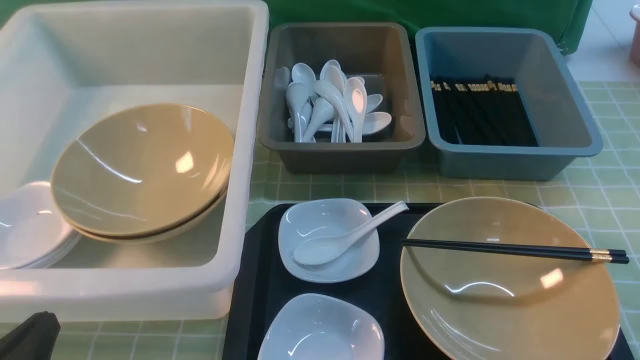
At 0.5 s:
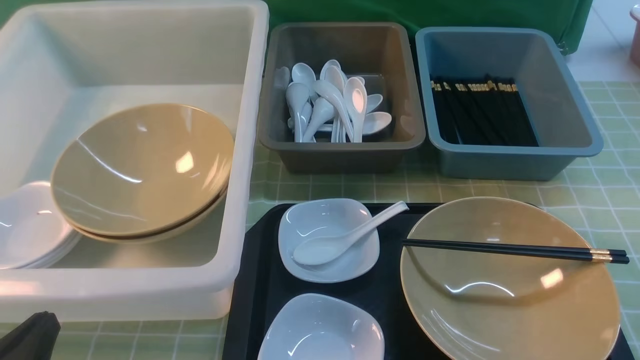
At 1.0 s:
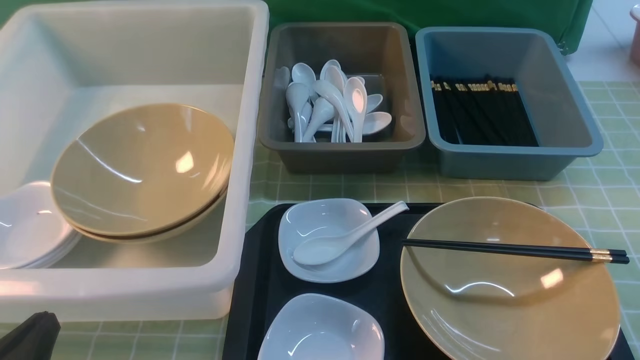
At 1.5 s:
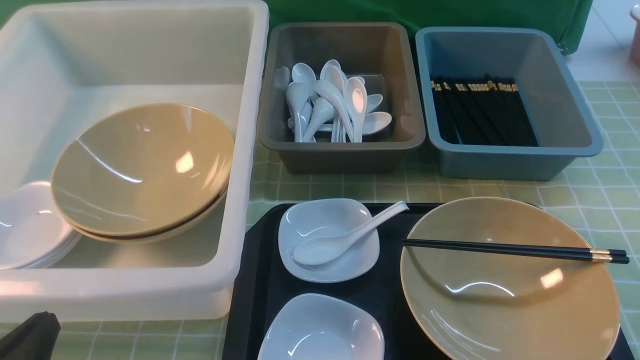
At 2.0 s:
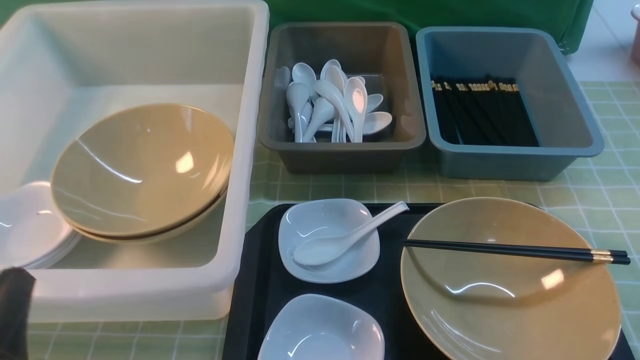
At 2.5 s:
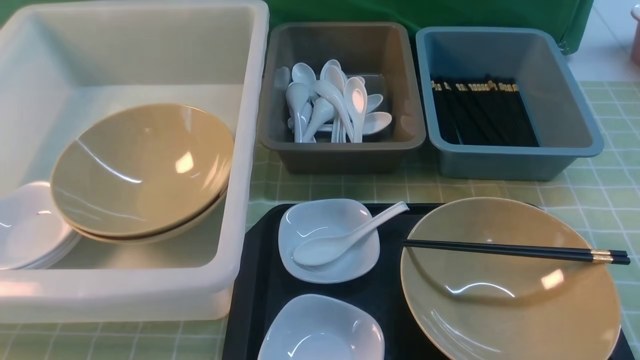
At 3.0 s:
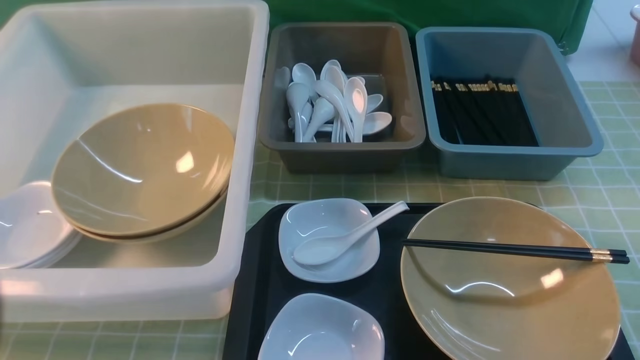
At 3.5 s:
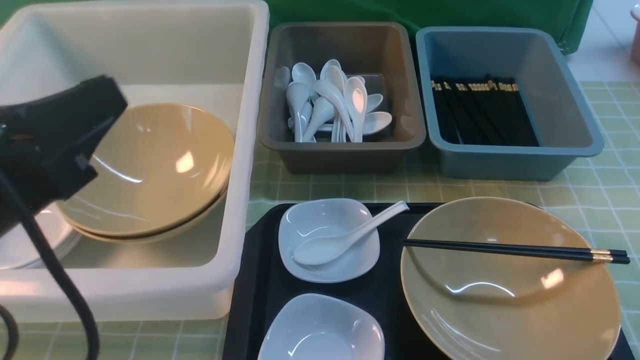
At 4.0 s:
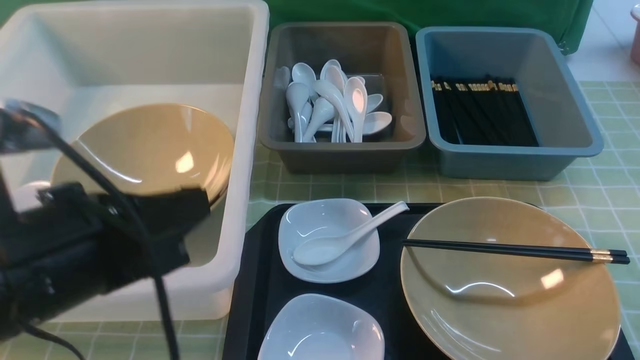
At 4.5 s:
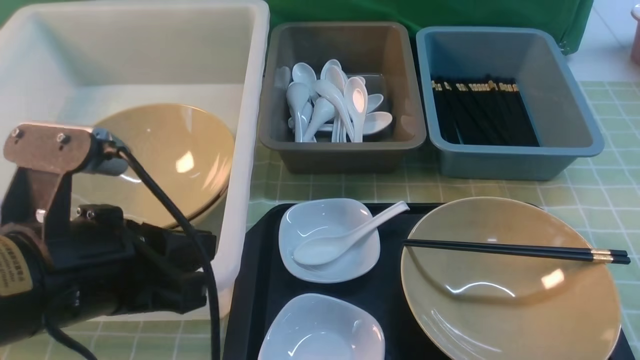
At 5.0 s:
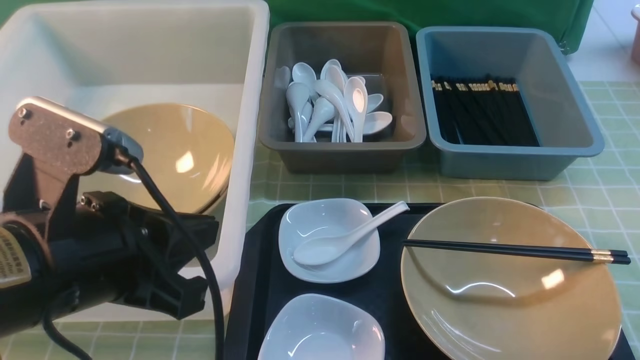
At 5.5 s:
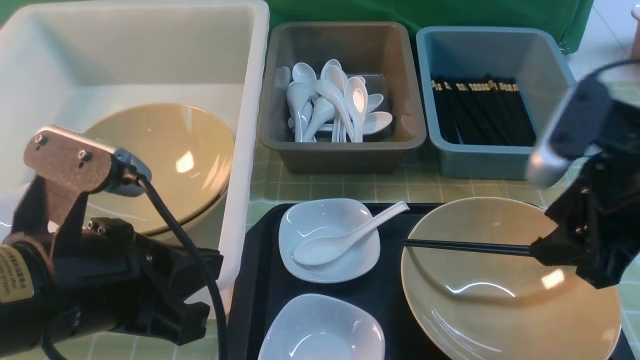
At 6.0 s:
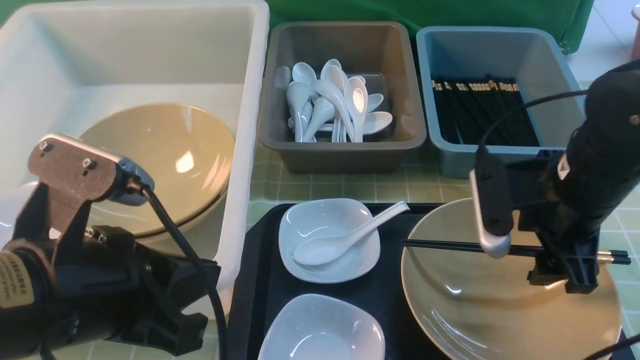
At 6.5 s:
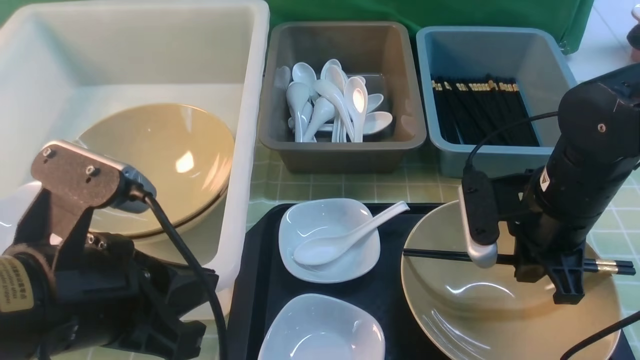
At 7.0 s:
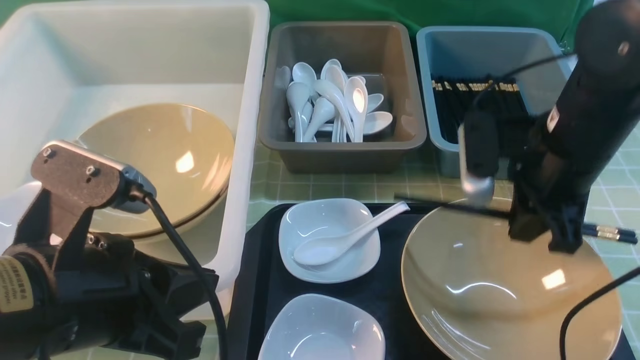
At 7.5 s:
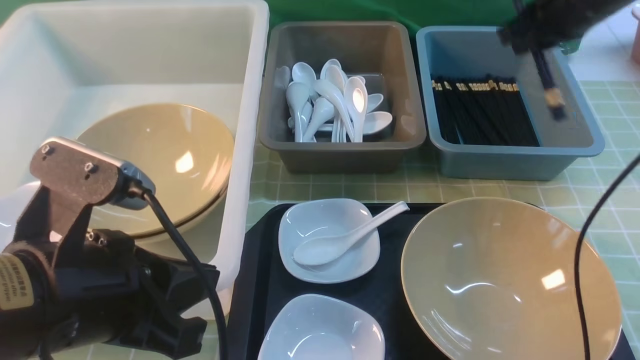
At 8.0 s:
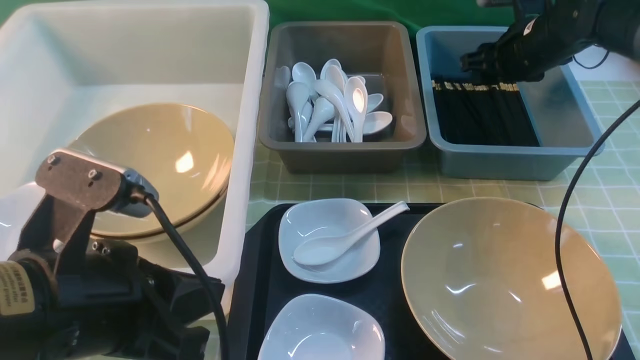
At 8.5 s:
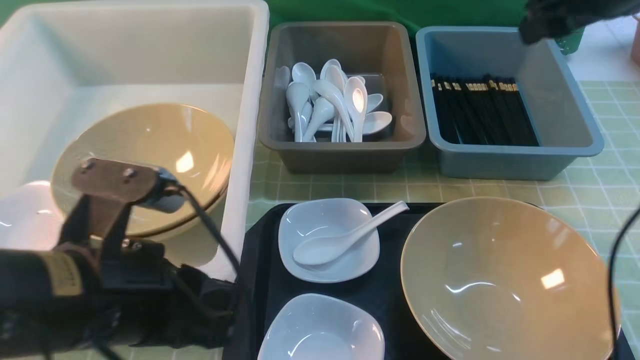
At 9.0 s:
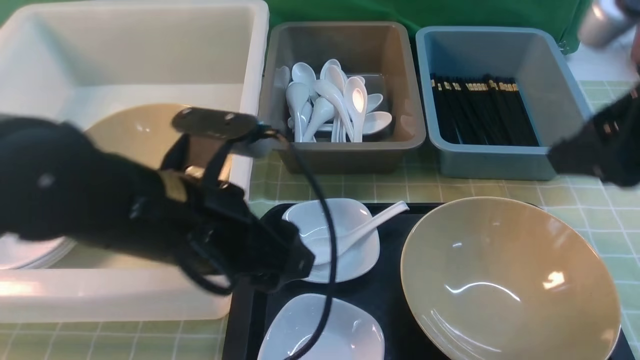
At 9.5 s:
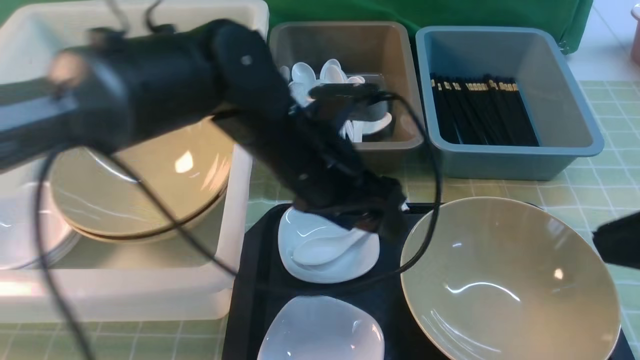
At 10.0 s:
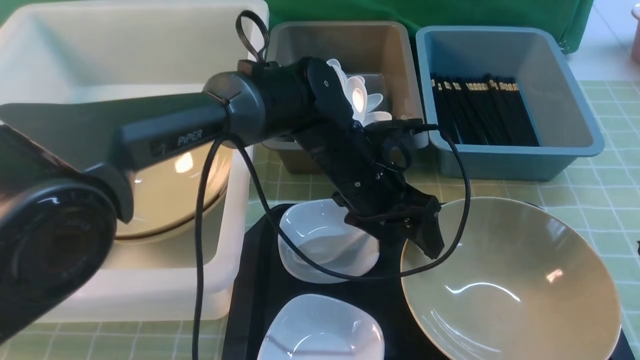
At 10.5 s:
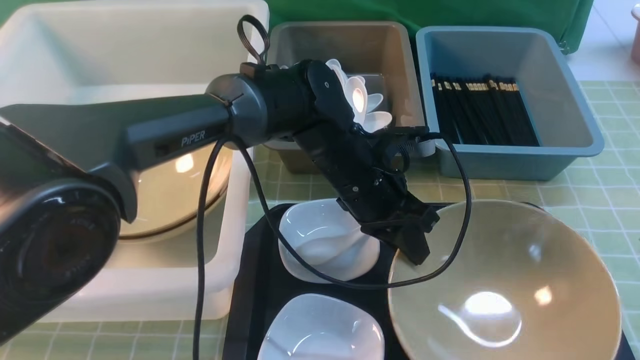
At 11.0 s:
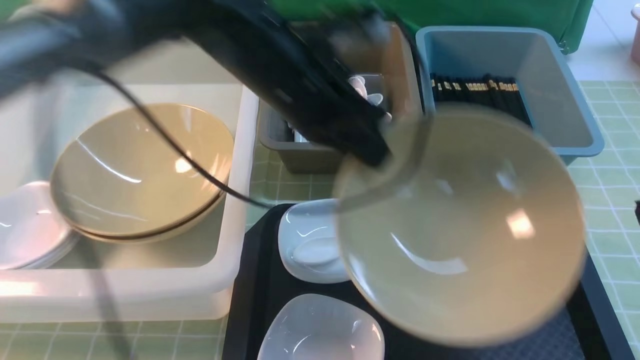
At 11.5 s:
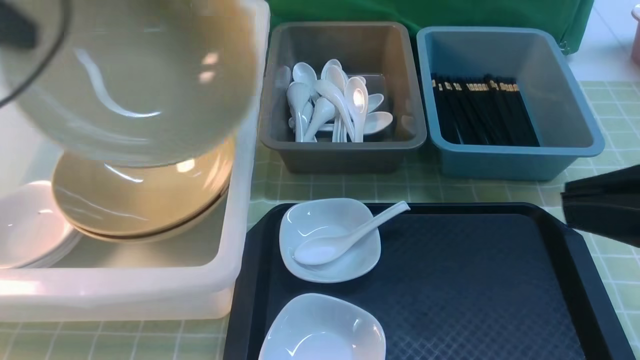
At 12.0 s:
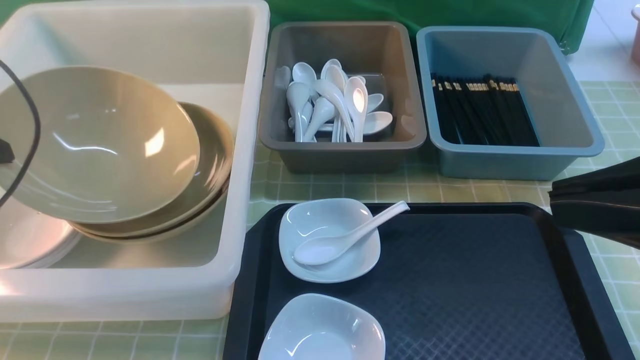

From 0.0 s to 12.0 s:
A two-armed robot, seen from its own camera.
Task of the whole recording: on green table put chopsticks spoon bowls plates into blue grey white boxes.
Step, from 0.0 s to 6.5 s: use the right arm to grab the chopsticks.
Step, from 7.0 s to 8.5 s: use the right arm to put the chopsticks into the small storage box on the right.
Step, from 9.0 s to 10.5 s: use the left arm to grab the yellow noodle bowl on the left.
From 2.0 s to 4.0 s: The left gripper heads upward, to the right and forward, covering approximately 15 cm.
From 4.0 s to 6.0 s: The right gripper shifts some 25 cm forward and to the left, and opens its fingers.
From 6.0 s to 8.0 s: The right gripper goes some 20 cm forward, and closes and opens again.
From 8.0 s to 10.0 s: The left gripper shifts about 30 cm forward, to the right and downward, and opens up, while the right gripper moves backward, some 40 cm, and closes its fingers.
From 10.0 s to 12.0 s: The left gripper moves to the left, approximately 40 cm, and closes its fingers.

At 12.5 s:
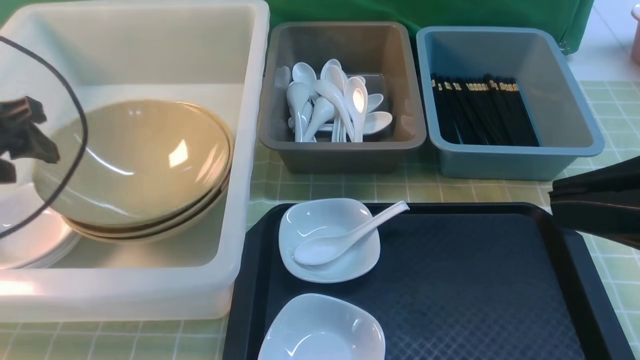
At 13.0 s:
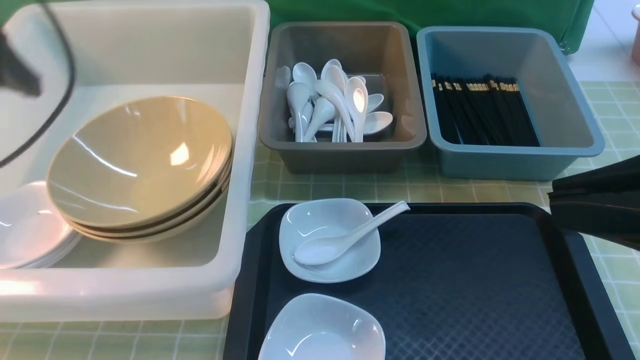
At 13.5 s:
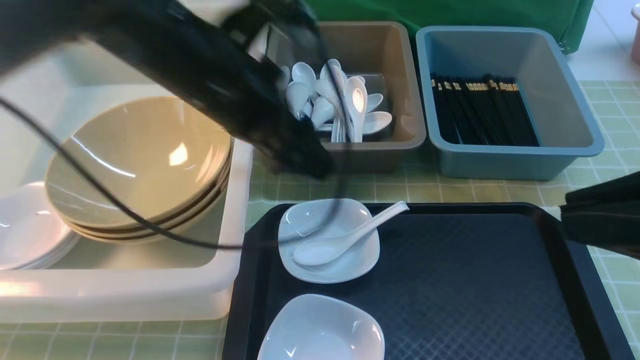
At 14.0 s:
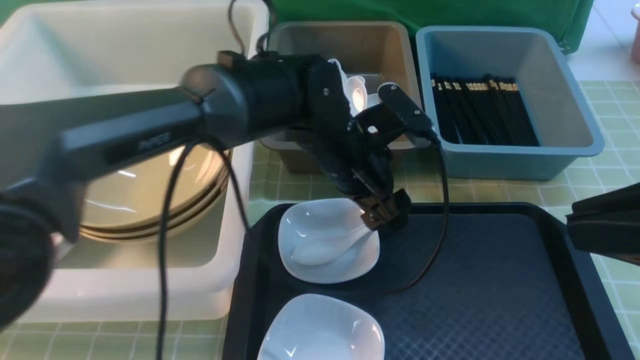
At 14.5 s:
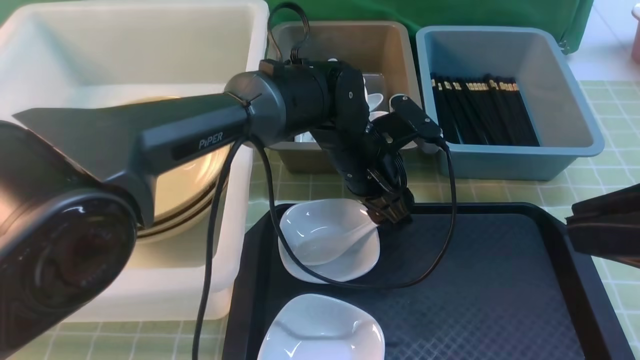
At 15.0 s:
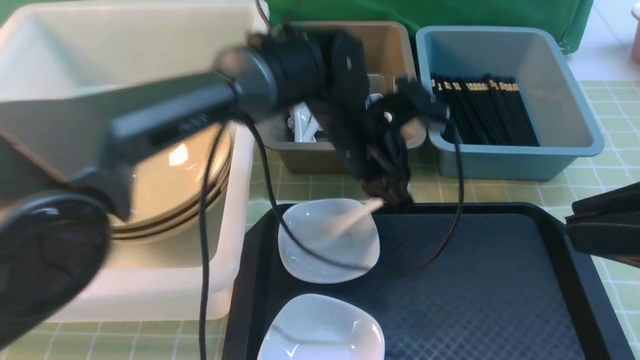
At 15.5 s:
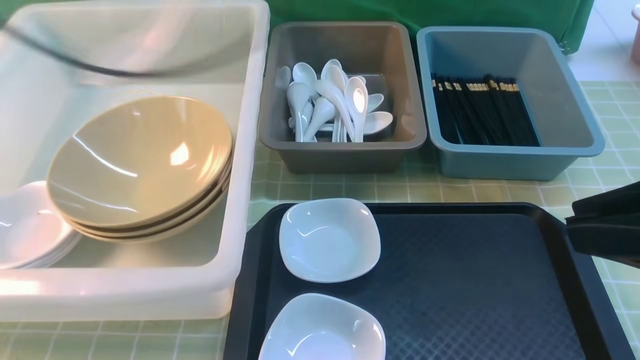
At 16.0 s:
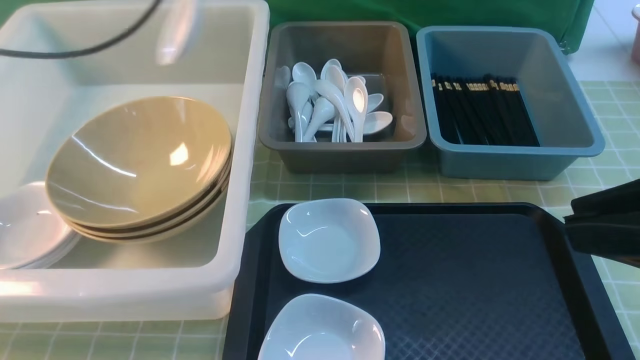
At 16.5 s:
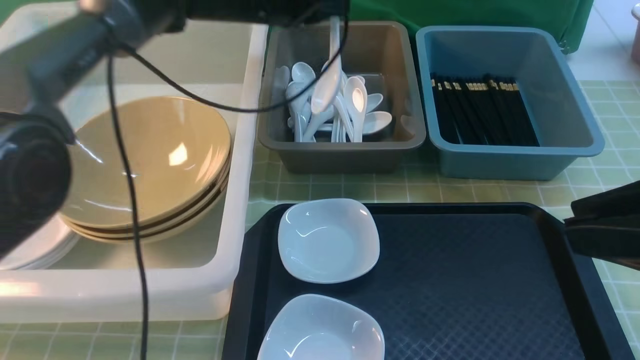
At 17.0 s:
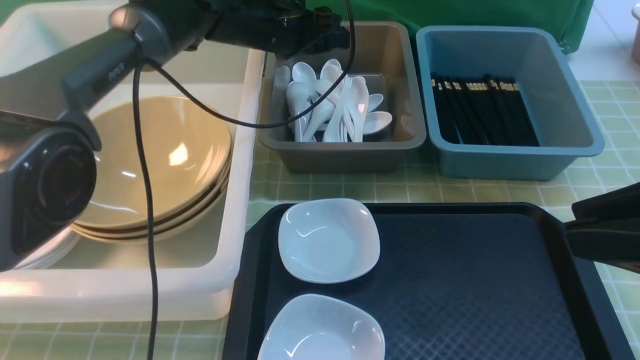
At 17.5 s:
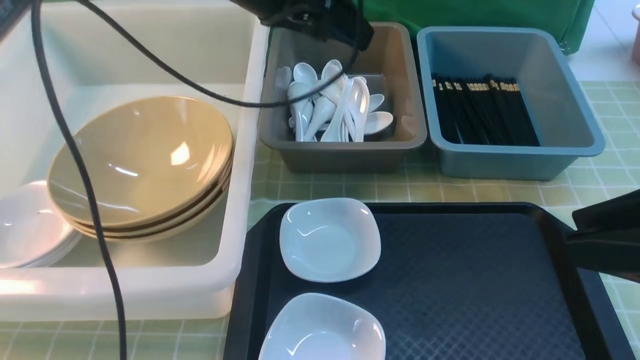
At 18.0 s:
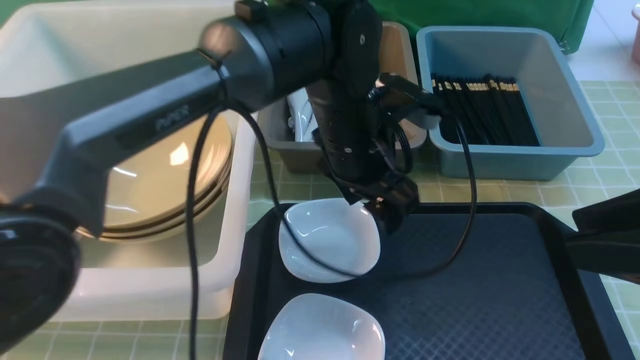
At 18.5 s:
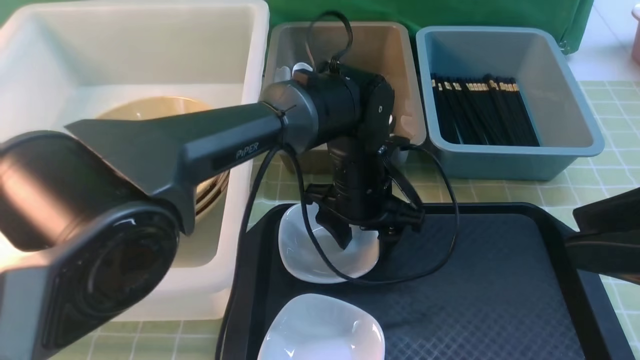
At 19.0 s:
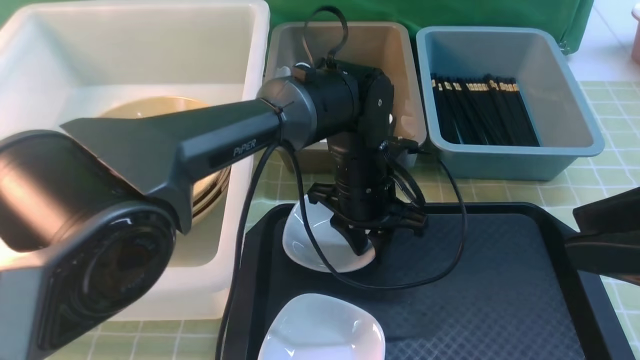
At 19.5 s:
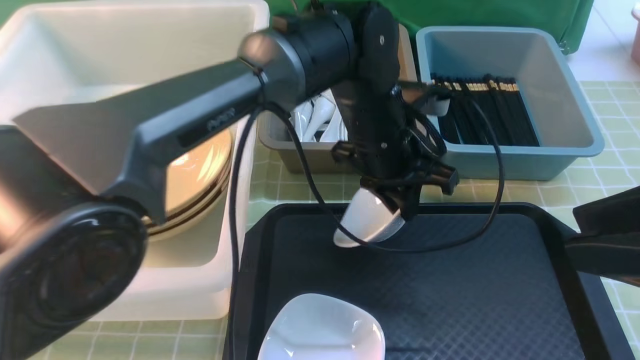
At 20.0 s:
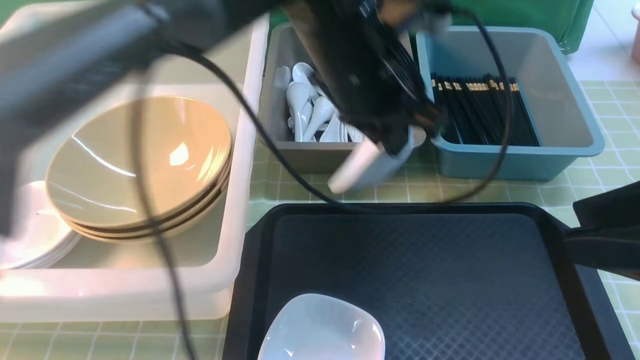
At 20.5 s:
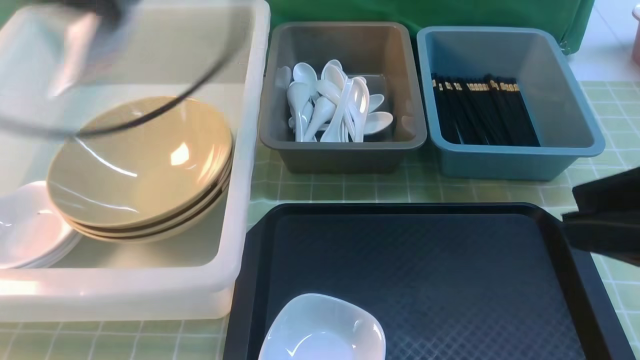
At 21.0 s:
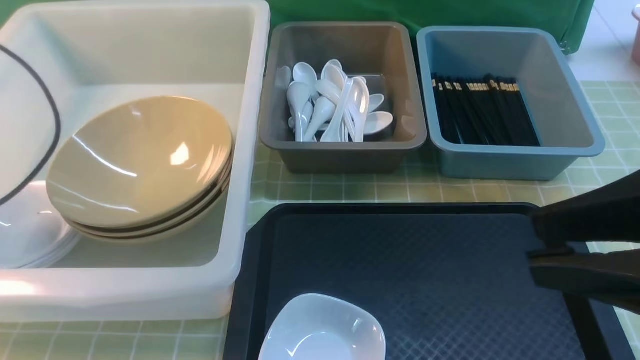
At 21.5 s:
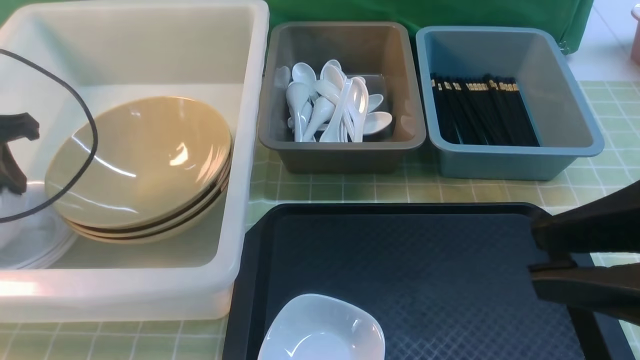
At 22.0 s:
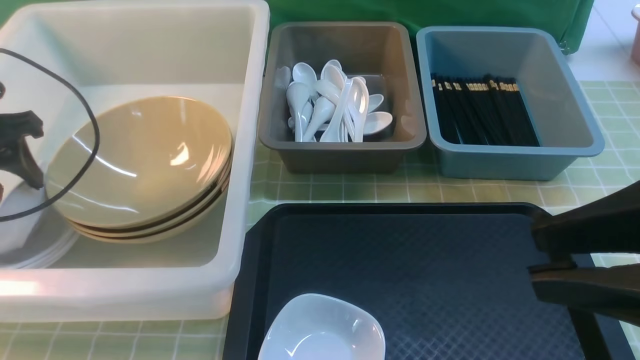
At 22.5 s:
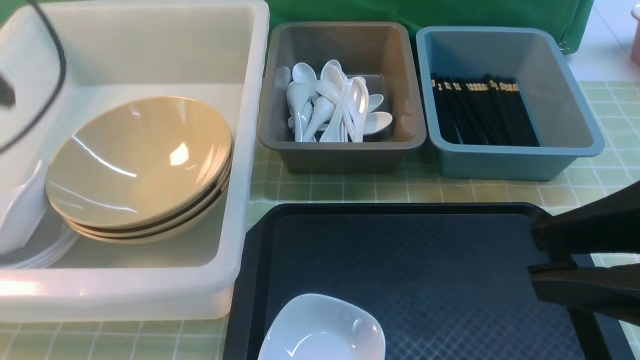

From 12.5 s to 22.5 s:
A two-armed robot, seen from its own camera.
Task of the whole recording: on green table put chopsticks spoon bowls plates into blue grey white boxes.
Step, from 14.0 s to 15.0 s: use the left arm to grab the soup spoon in the middle.
Step, from 15.5 s to 17.0 s: use the left arm to put the soup spoon into the small storage box in the middle.
Step, from 17.5 s to 19.0 s: use the left arm to grab the plate.
From 12.5 s to 14.5 s: The left gripper is displaced to the right by roughly 35 cm.
From 14.5 s to 16.5 s: The left gripper shifts roughly 20 cm forward, to the left and upward.
From 16.5 s to 18.5 s: The left gripper moves backward, to the right and downward, approximately 20 cm, and opens its fingers.
From 18.5 s to 20.5 s: The left gripper travels to the left and upward by about 35 cm, and closes.
From 20.5 s to 22.5 s: The left gripper is displaced to the left by about 10 cm, and opens.
